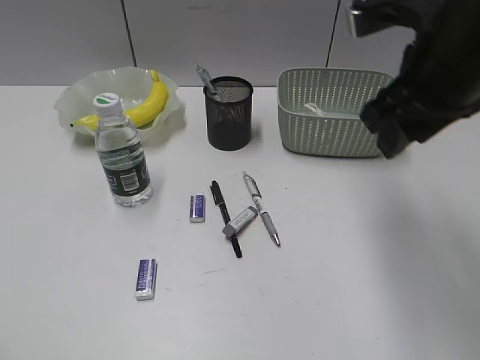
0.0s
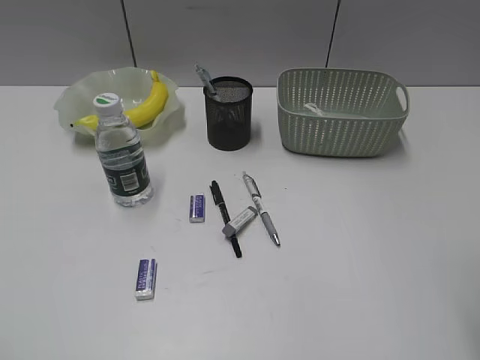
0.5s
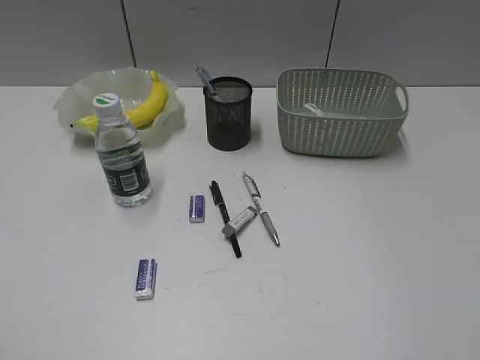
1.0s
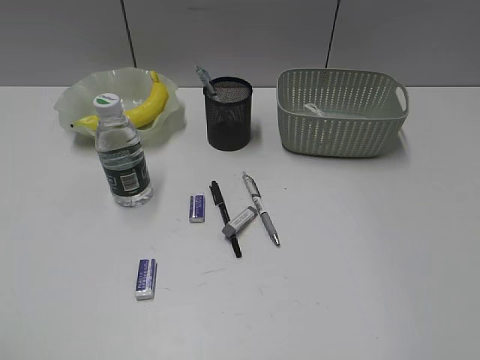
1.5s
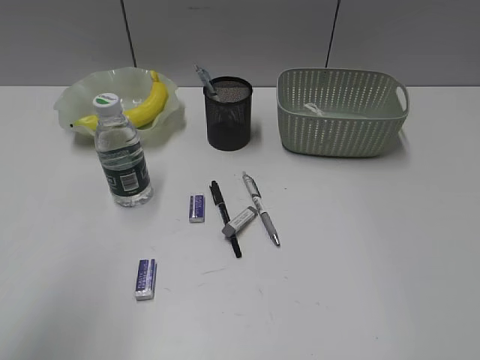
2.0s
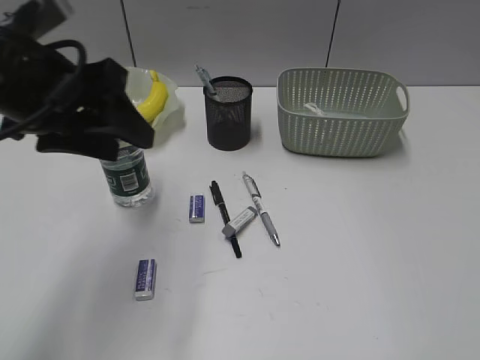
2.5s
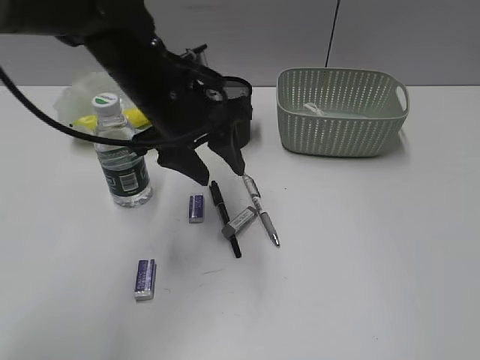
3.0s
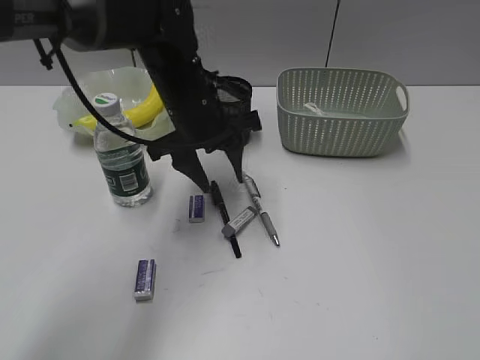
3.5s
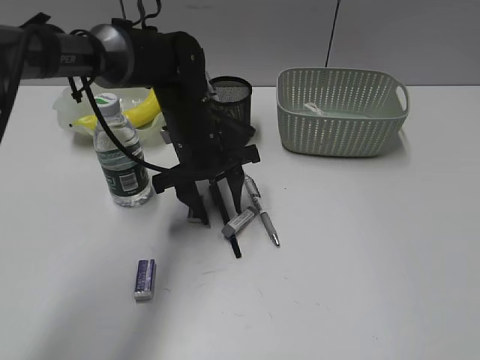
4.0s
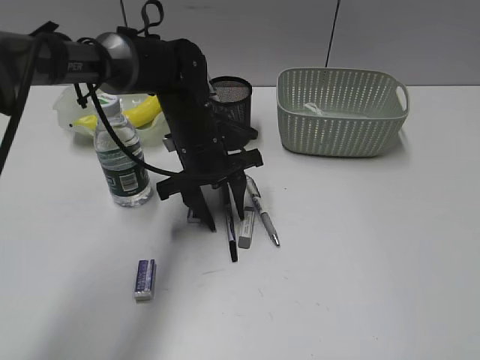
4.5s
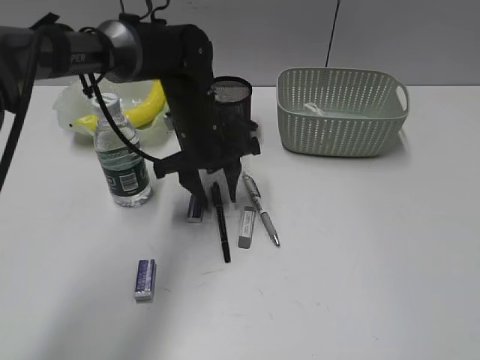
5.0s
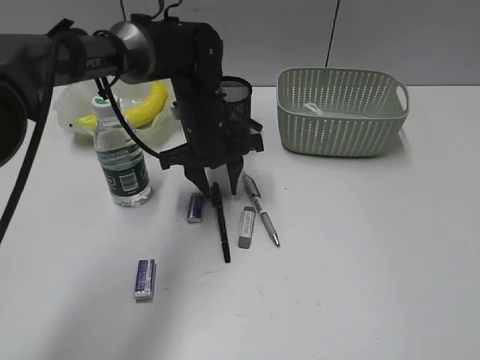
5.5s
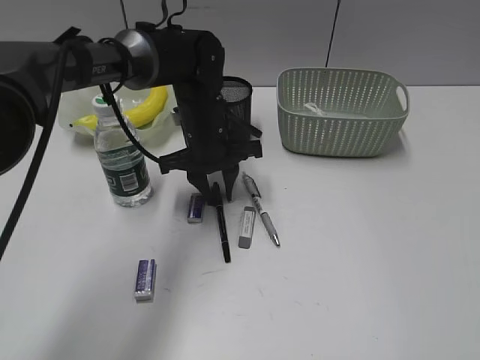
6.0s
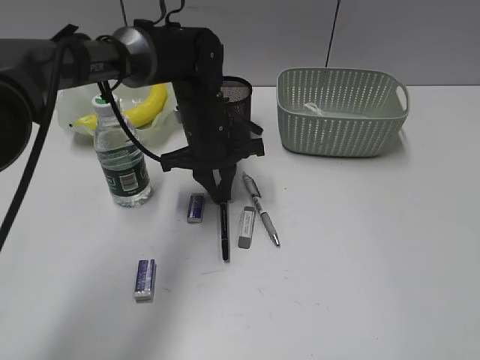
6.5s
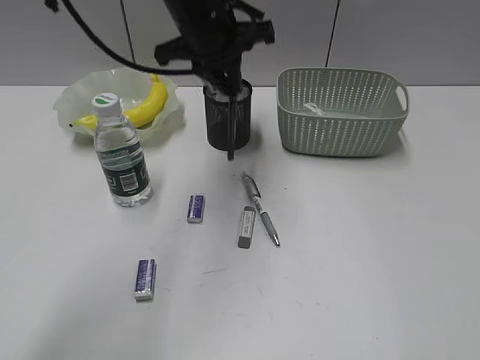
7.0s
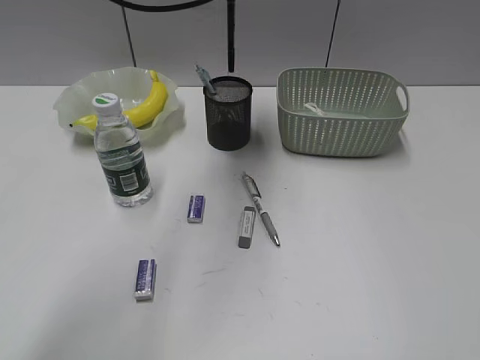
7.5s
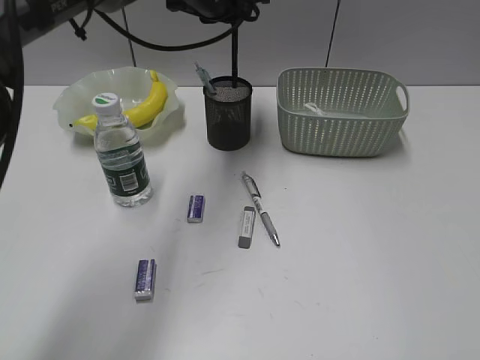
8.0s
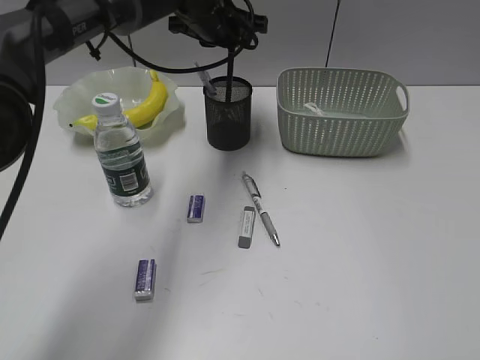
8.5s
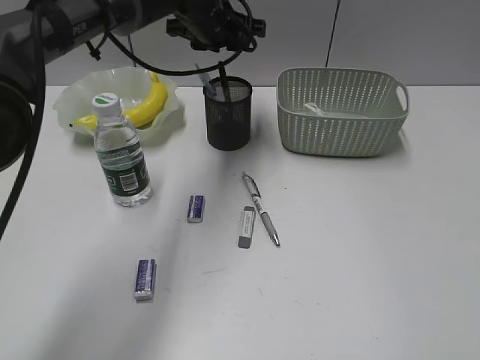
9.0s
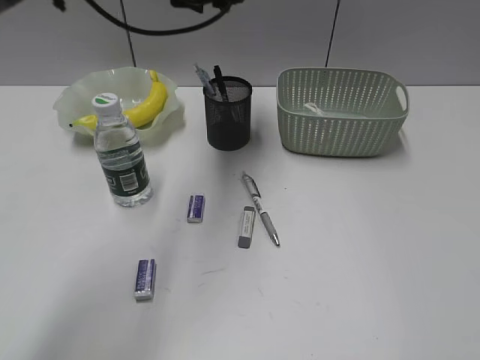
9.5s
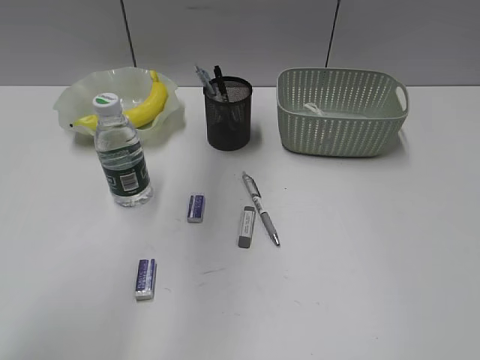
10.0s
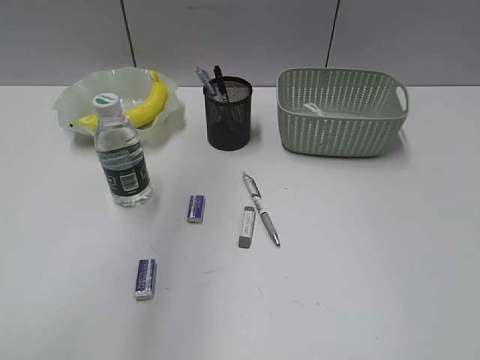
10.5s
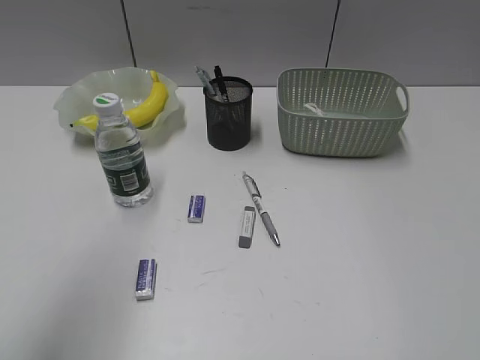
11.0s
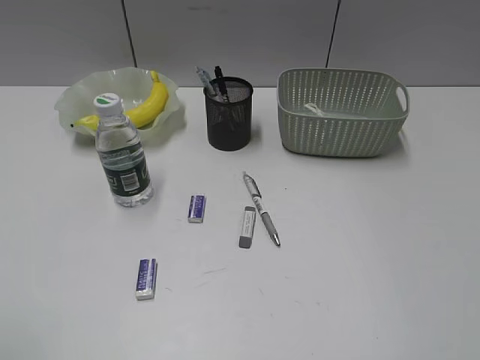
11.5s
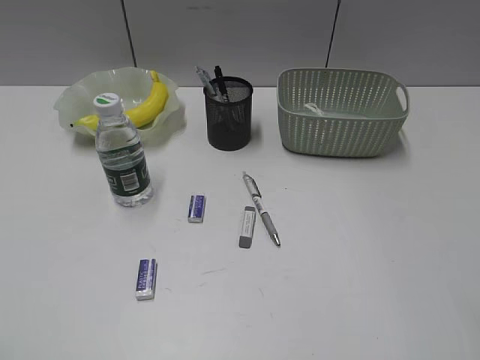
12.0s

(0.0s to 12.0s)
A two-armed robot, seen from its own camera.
Step, 0.0s - 6.0s: Grasp the black pen with left gripper.
Step, 6.5s - 9.0s: Place the black pen in pen holder with left gripper.
0.0s - 2.0s: The left gripper goes approximately 15 cm forward and to the right, while the right gripper travels backward and to the right by roughly 30 cm.
2.0s - 4.0s: The left gripper travels forward, to the right and downward by approximately 40 cm.
4.0s - 6.0s: The grippers stay close to where they were, moving slightly.
6.0s - 8.0s: The left gripper is displaced upward and forward by approximately 15 cm, and closes.
8.0s - 10.0s: The left gripper moves upward, backward and to the left, some 20 cm, and opens up.
10.0s - 12.0s: The right gripper travels forward by some 10 cm; the left gripper travels backward and to the left by roughly 50 cm.

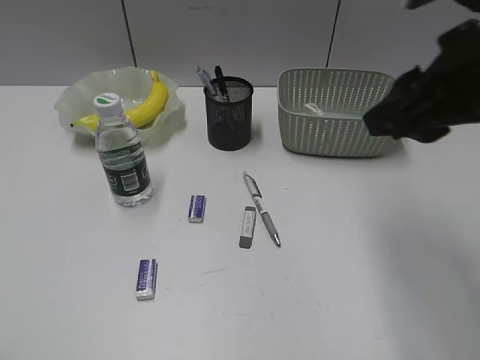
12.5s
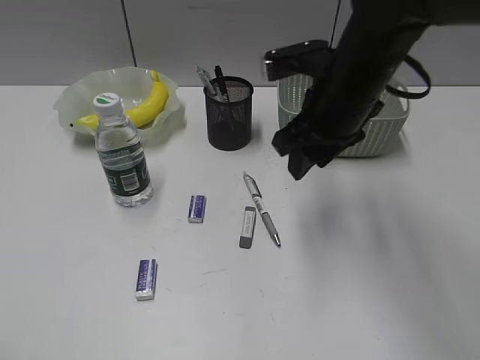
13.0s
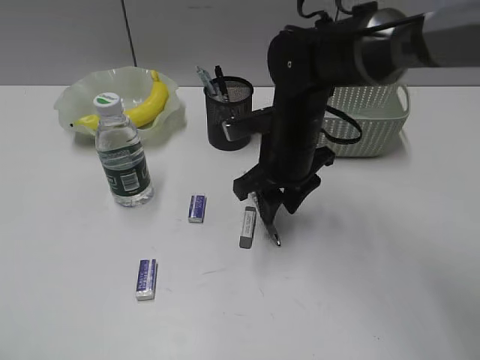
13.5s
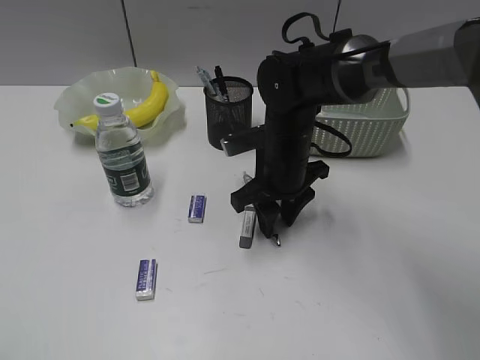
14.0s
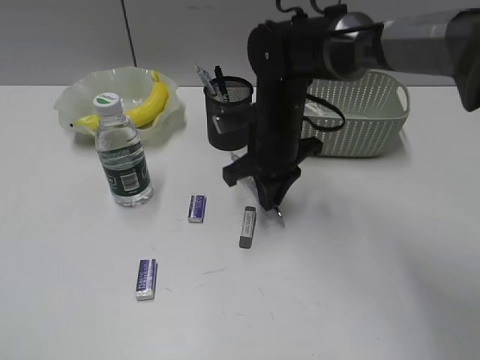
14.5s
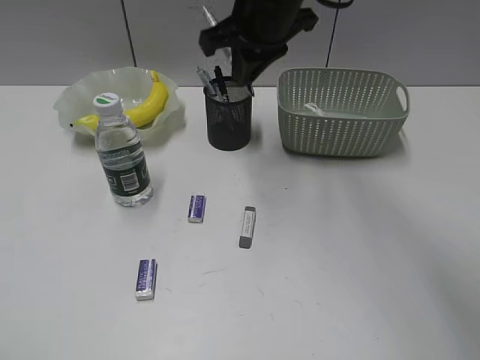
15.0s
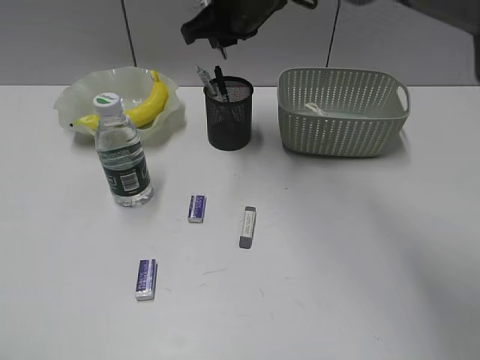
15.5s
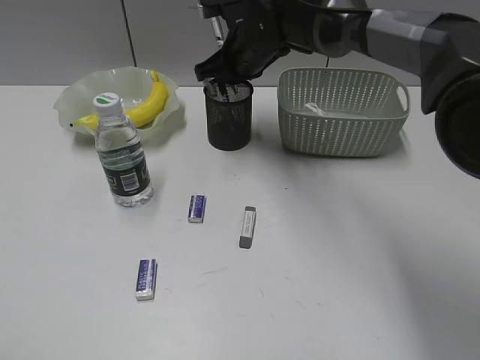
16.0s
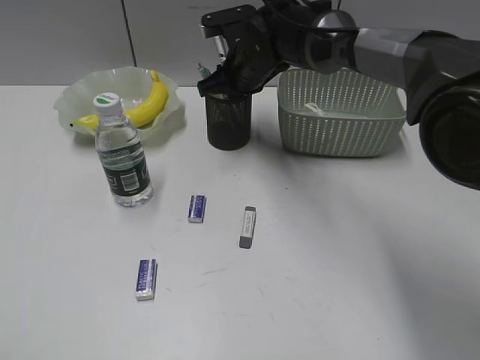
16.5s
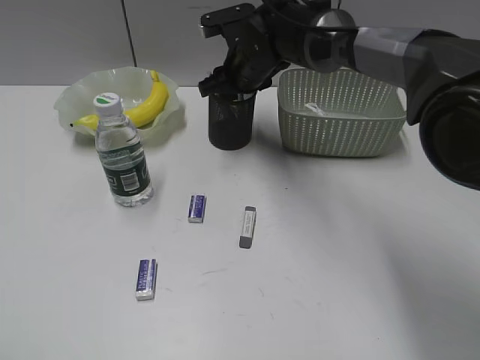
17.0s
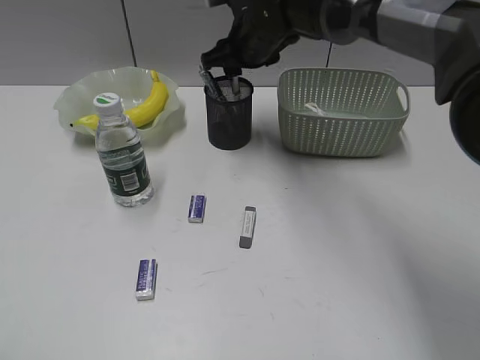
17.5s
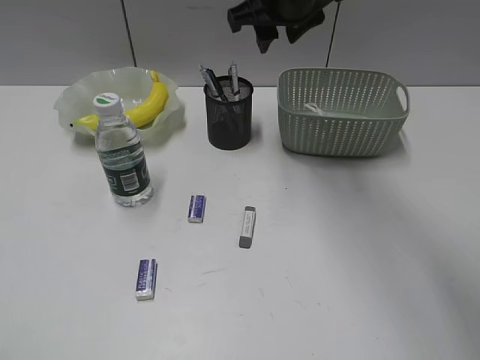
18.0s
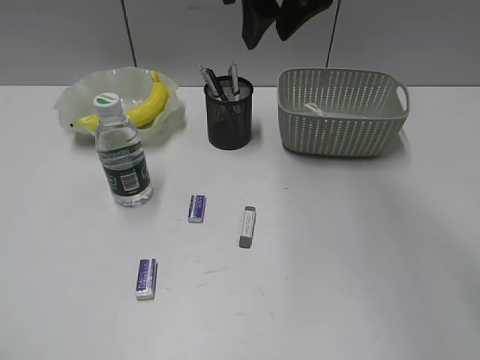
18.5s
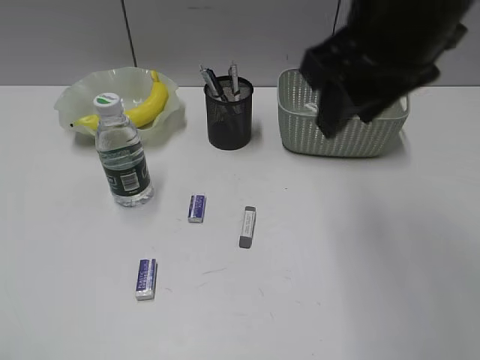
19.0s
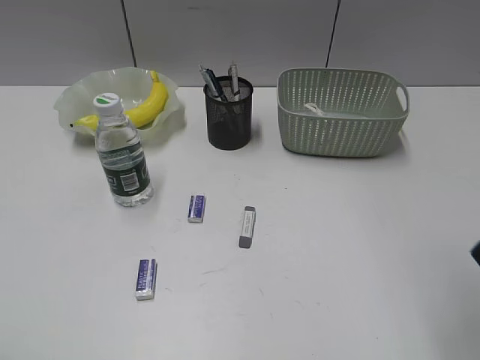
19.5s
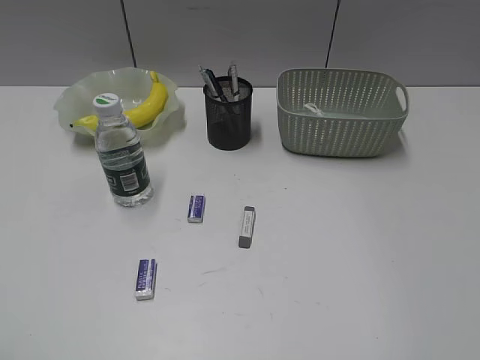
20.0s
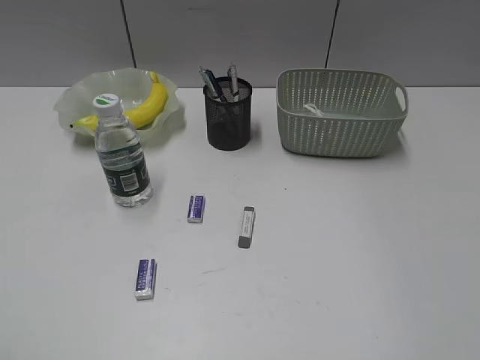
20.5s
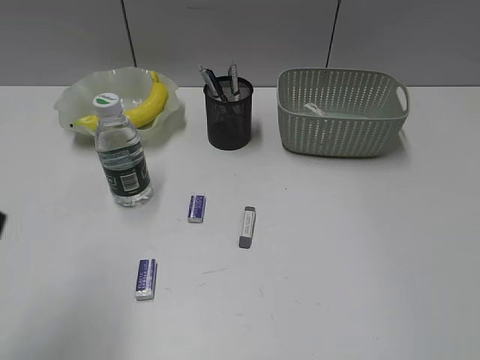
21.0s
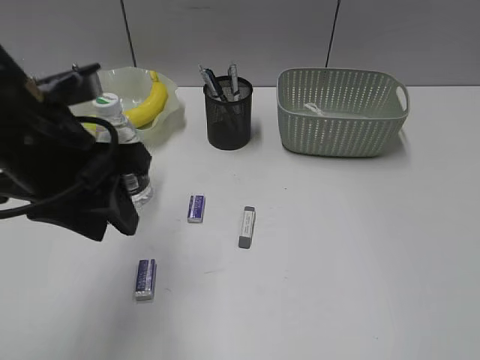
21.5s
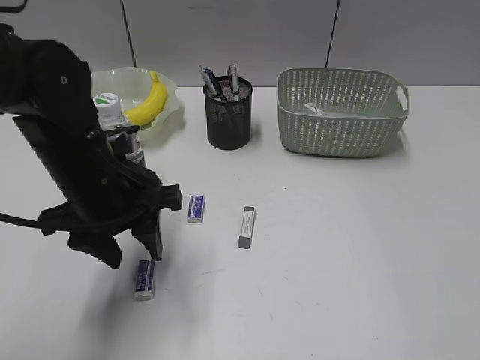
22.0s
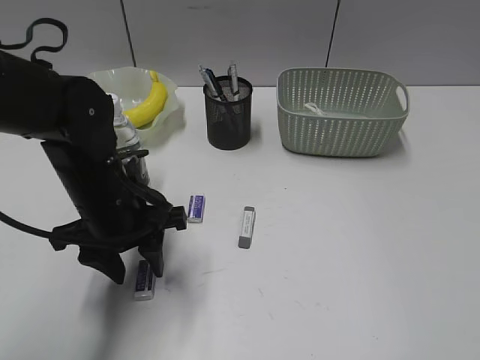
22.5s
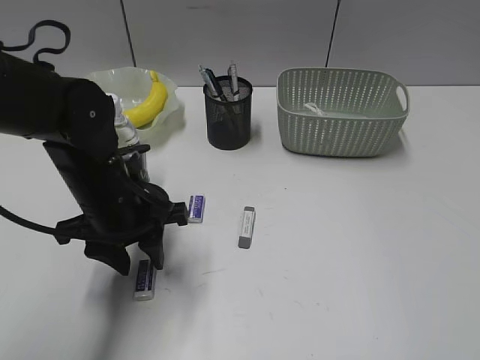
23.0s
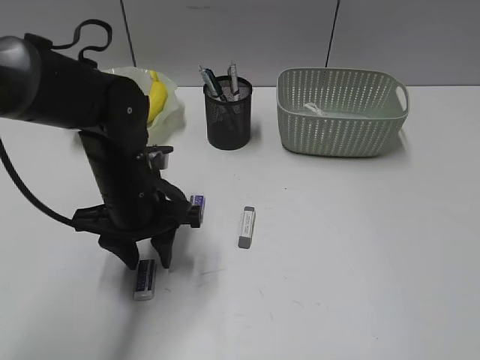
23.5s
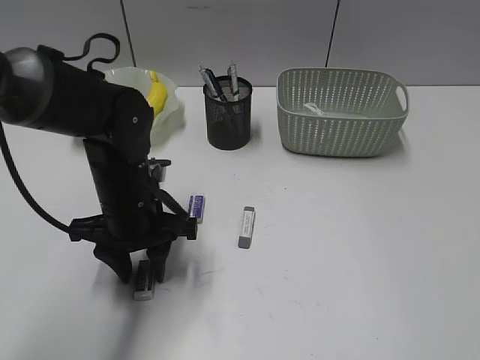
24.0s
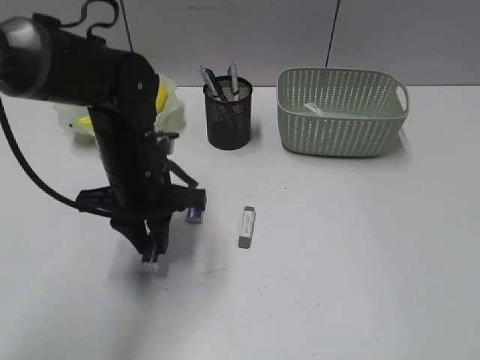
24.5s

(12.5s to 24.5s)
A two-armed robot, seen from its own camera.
Step, 14.5s - 17.0s: Place the gray pen in pen holder with right gripper.
Step, 17.5s - 24.0s: Grasp the eraser with left gripper.
12.5s - 14.5s: The right gripper heads downward, forward and to the left, covering about 30 cm, and closes its fingers.
14.5s - 16.5s: The right gripper goes roughly 10 cm forward, and moves some 15 cm upward and comes back.
16.5s - 18.5s: The right gripper heads upward and backward, covering roughly 20 cm, and opens its fingers.
18.5s - 20.5s: The right gripper moves backward and to the right, approximately 50 cm.
20.5s - 22.5s: The left gripper is displaced forward, to the right and downward by some 35 cm.
22.5s - 24.5s: The left gripper closes its fingers.

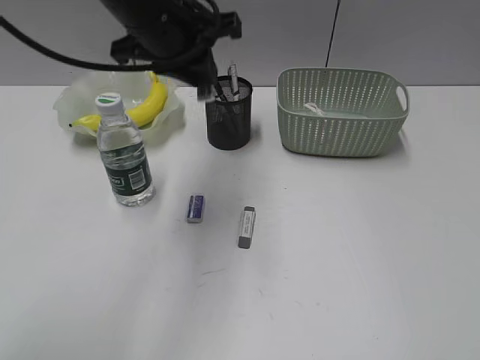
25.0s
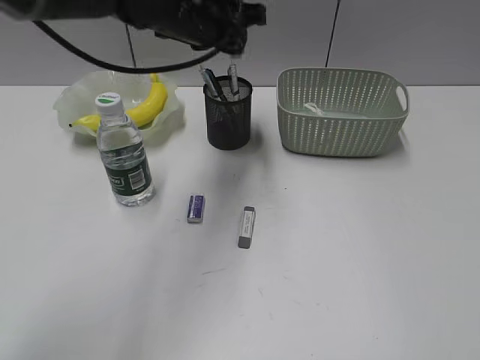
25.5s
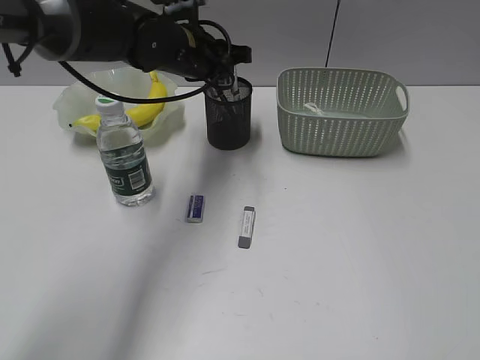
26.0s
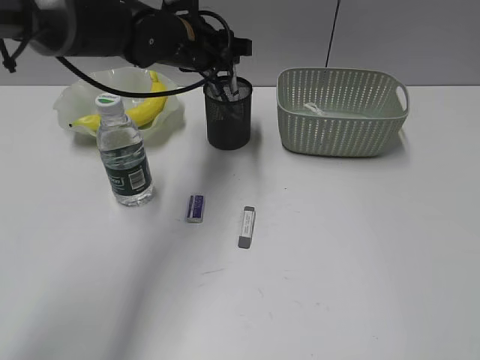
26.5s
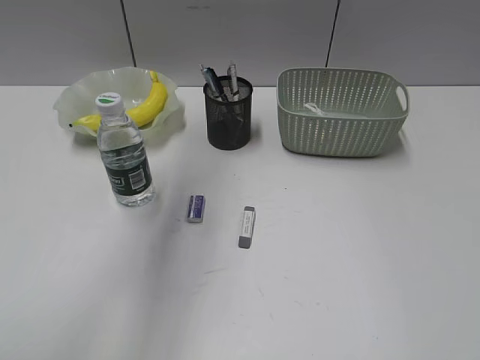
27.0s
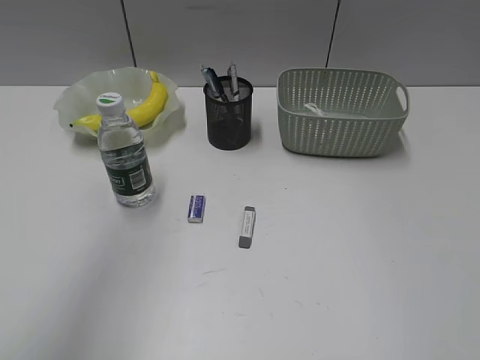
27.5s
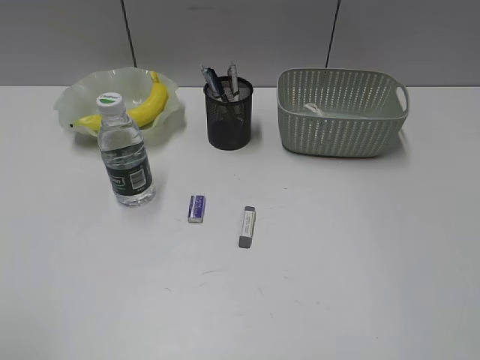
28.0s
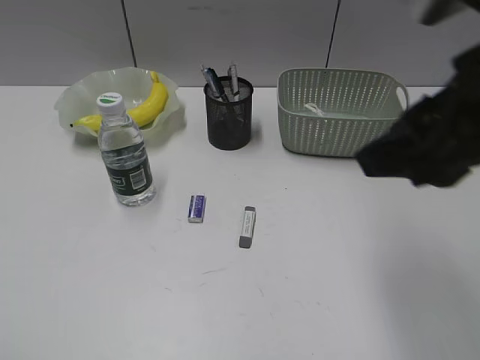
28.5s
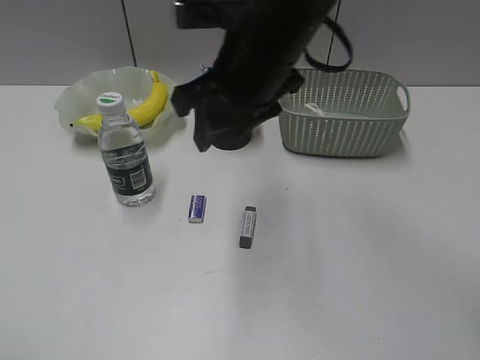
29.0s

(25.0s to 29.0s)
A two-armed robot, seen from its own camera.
25.0s - 27.0s: The left gripper heads upward and to the left, covering some 10 cm, and opens its fingers.
27.0s - 29.0s: The right gripper is displaced forward and to the left by some 40 cm. Meanwhile the left gripper goes roughly 40 cm backward and to the left.
